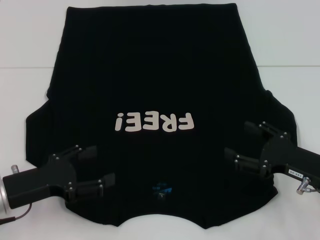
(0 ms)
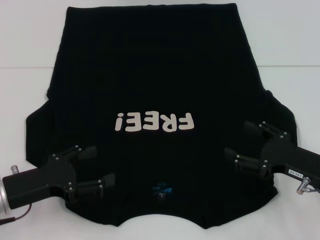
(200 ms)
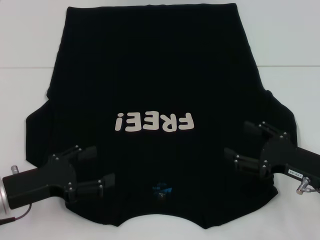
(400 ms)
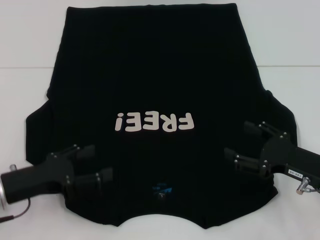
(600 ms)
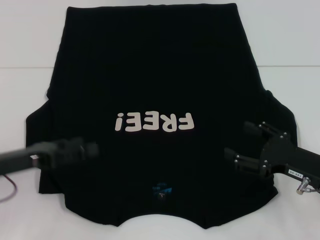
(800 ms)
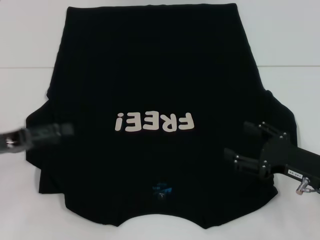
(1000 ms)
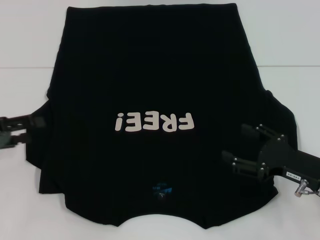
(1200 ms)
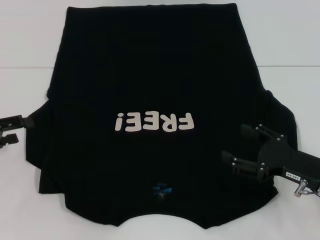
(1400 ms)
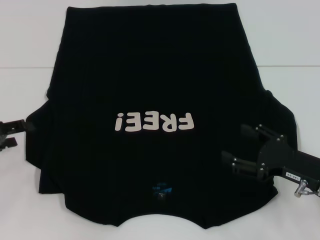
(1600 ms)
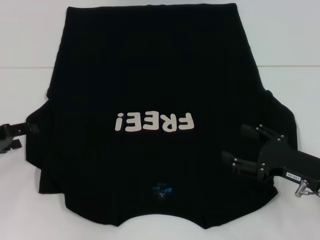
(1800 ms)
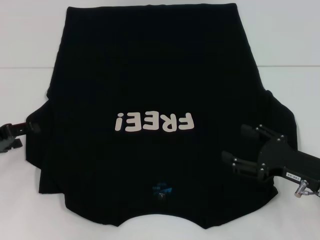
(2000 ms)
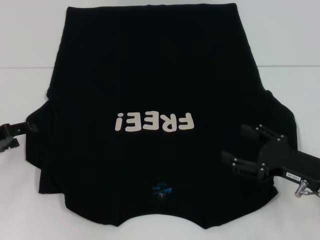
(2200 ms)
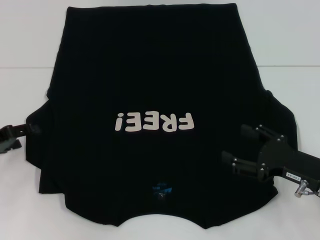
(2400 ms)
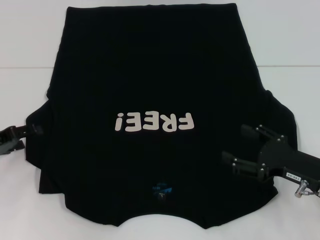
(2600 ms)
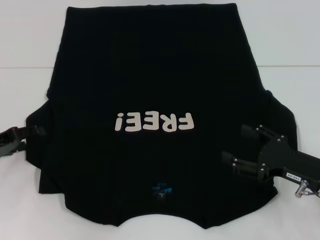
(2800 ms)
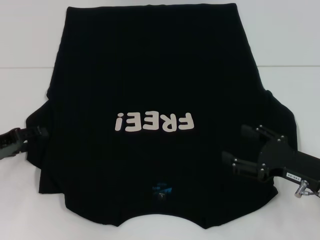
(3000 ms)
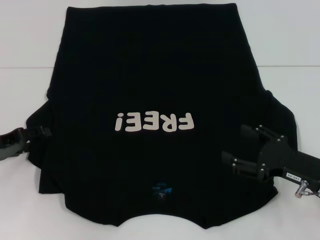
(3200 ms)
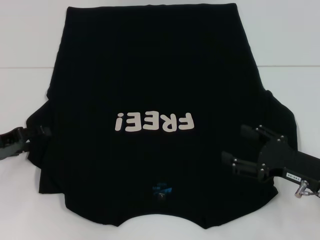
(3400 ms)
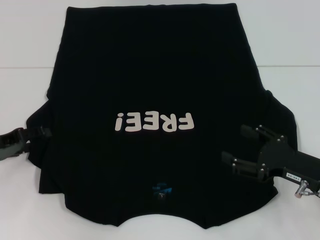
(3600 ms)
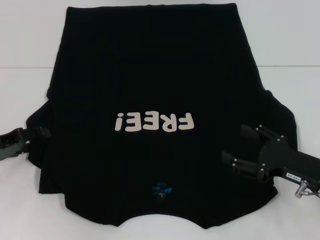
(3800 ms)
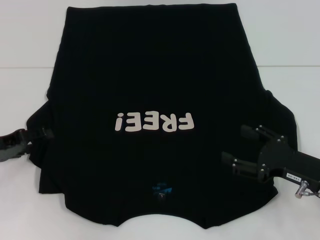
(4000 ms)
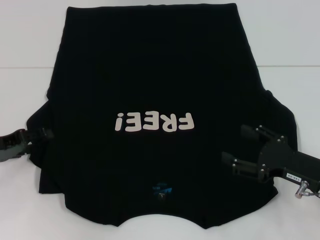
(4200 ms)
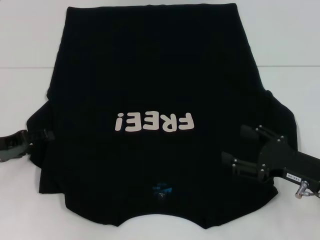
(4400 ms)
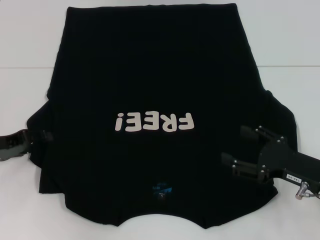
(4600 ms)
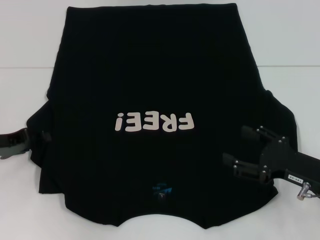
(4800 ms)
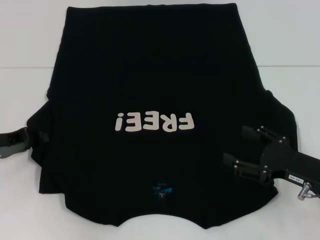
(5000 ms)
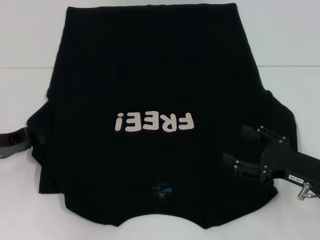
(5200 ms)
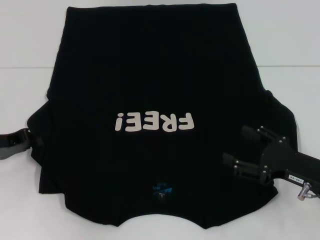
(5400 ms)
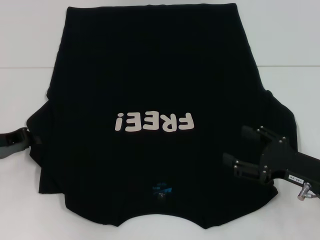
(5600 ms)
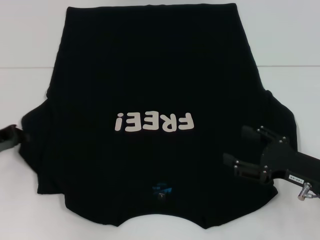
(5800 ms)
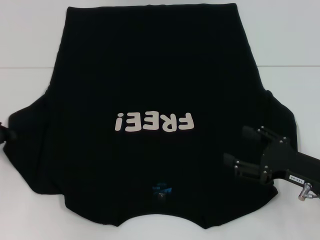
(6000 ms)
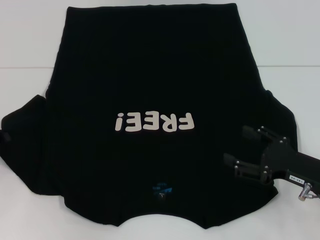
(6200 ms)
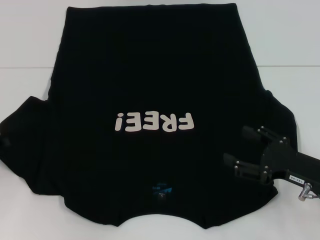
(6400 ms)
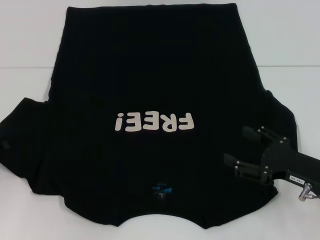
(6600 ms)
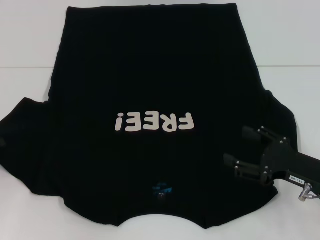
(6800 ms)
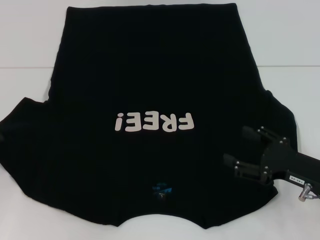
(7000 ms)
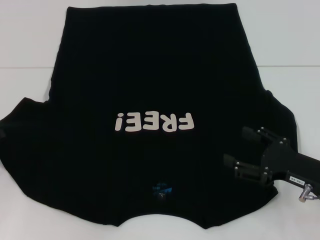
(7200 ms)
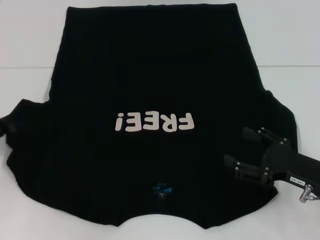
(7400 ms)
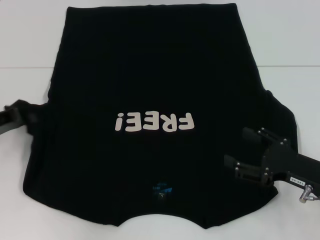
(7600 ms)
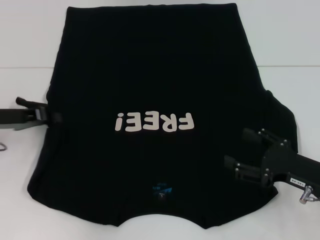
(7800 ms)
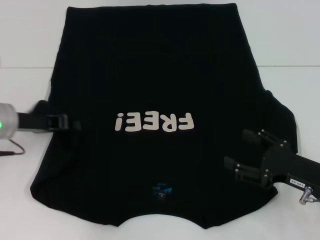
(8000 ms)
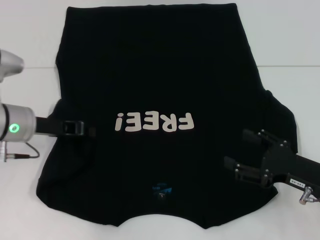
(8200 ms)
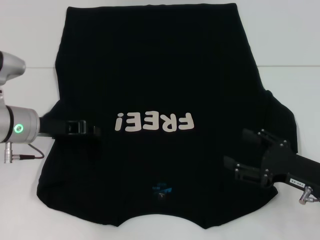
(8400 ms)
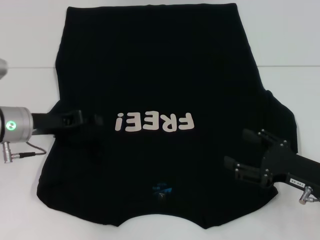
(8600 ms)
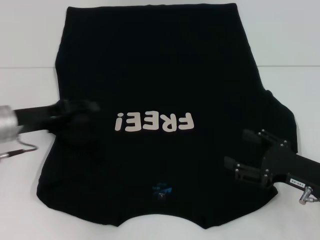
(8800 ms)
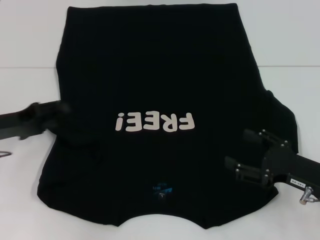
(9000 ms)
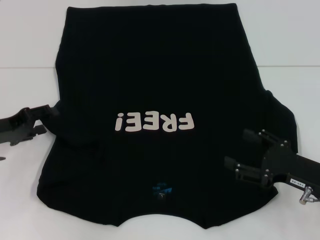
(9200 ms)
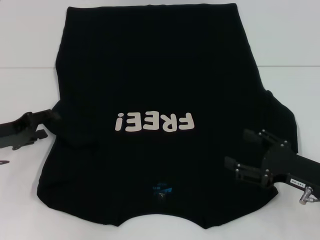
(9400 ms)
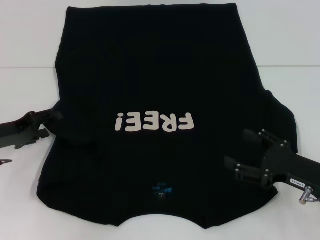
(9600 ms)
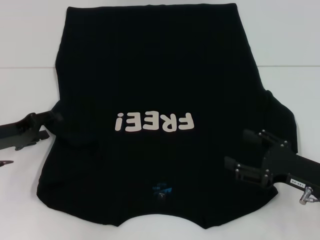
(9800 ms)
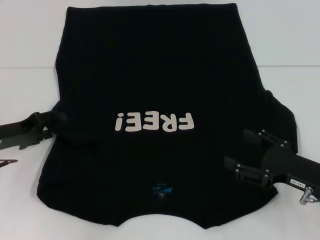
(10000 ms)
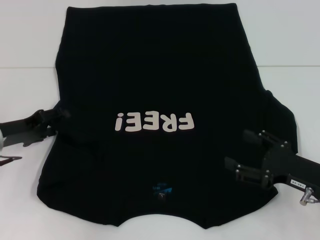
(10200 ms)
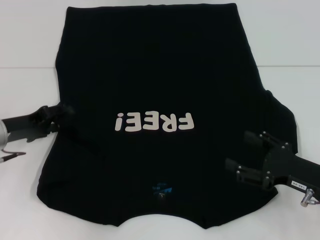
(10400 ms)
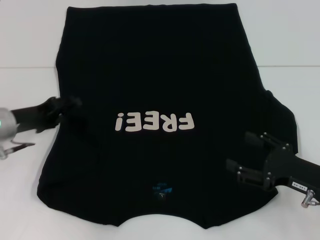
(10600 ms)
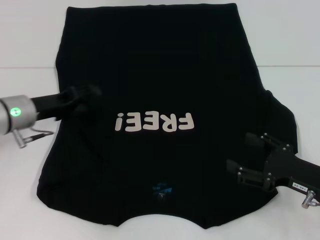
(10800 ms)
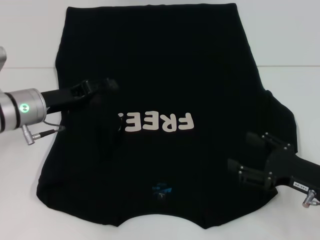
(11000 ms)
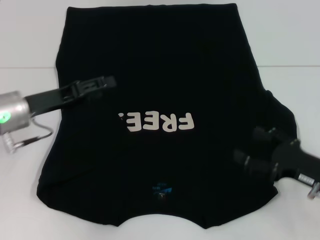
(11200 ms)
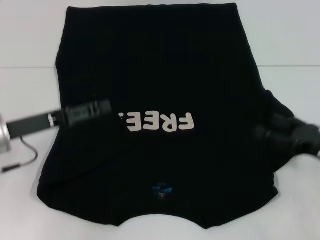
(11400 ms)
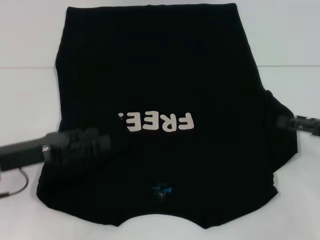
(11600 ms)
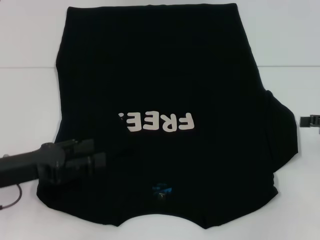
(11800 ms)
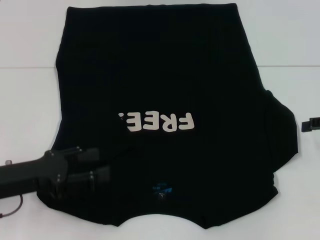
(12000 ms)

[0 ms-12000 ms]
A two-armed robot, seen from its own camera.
Step, 0 ms to 11200 ms: Fold the bottom left sleeve with your left hand.
0 ms to 1600 ms: The left gripper moves to the left and forward, roughly 10 cm.
1600 ms to 3000 ms: The grippers move only a little.
3000 ms to 4400 ms: Neither gripper changes place.
4400 ms to 6000 ms: The left gripper closes its fingers.
6000 ms to 7600 ms: The grippers stay close to where they were, moving slightly.
7600 ms to 9000 ms: The left gripper moves roughly 10 cm to the right and comes back, and opens up.
9000 ms to 10400 ms: The grippers move only a little.
10400 ms to 12000 ms: The right gripper moves upward, to the right and forward, some 15 cm. The left gripper heads backward, covering approximately 10 cm.

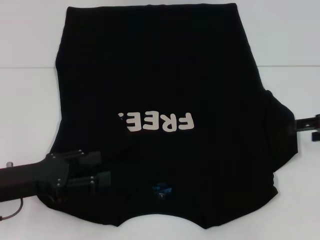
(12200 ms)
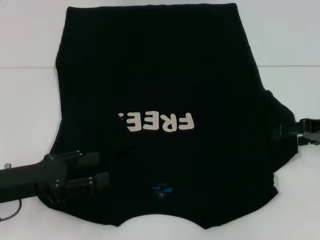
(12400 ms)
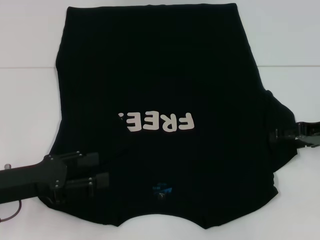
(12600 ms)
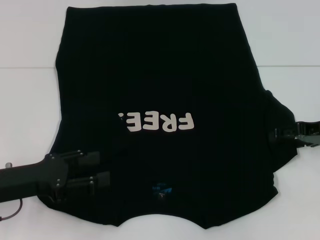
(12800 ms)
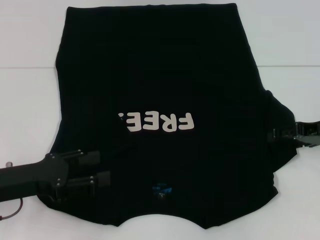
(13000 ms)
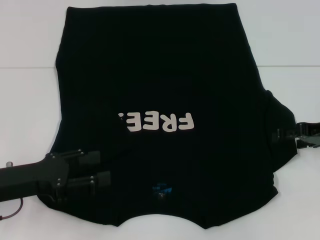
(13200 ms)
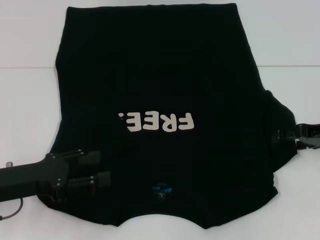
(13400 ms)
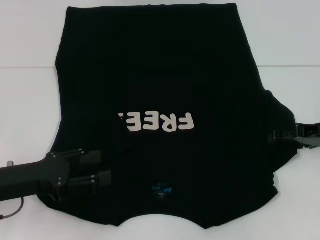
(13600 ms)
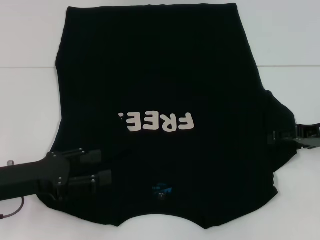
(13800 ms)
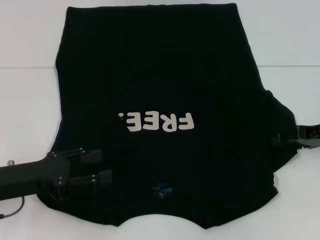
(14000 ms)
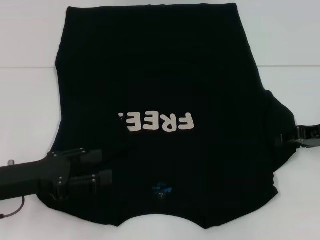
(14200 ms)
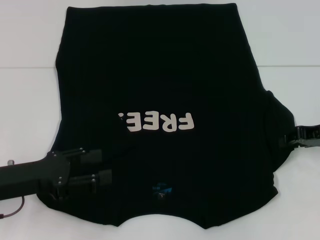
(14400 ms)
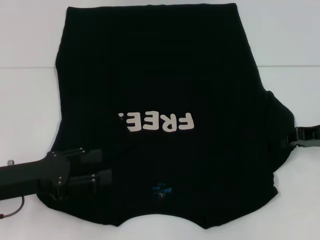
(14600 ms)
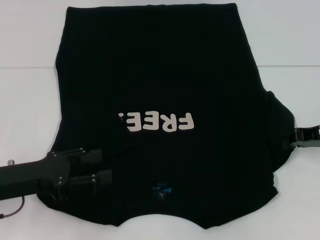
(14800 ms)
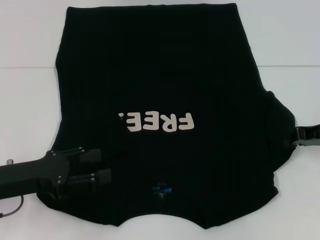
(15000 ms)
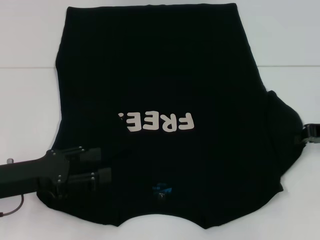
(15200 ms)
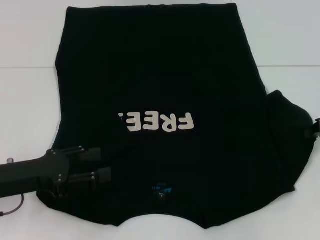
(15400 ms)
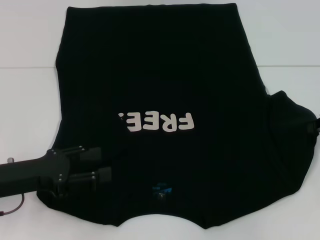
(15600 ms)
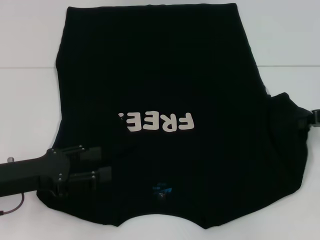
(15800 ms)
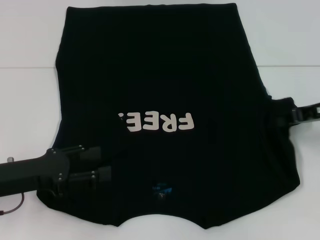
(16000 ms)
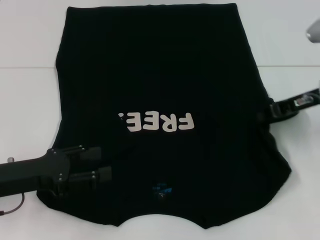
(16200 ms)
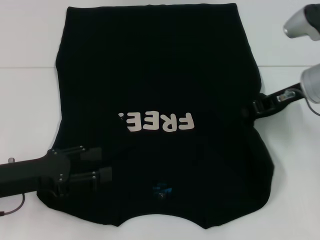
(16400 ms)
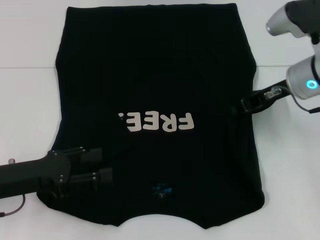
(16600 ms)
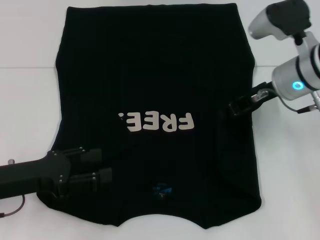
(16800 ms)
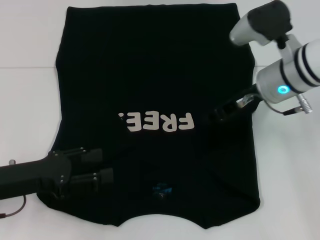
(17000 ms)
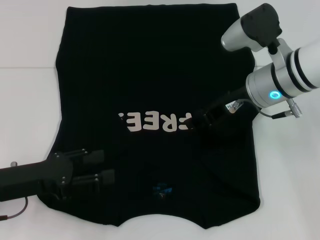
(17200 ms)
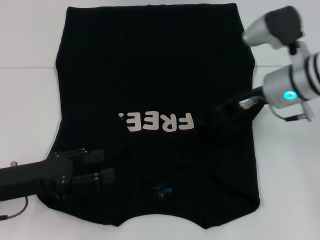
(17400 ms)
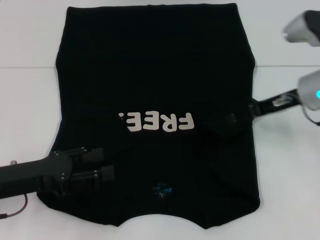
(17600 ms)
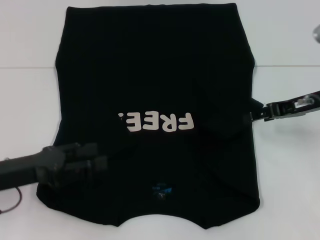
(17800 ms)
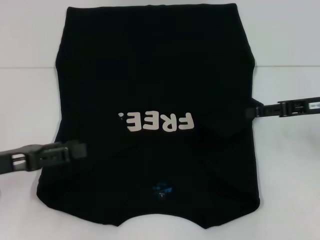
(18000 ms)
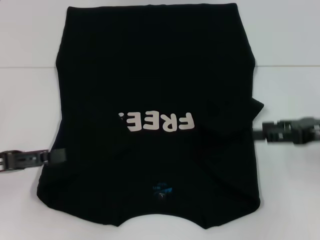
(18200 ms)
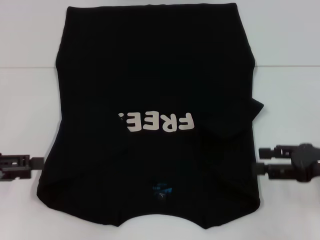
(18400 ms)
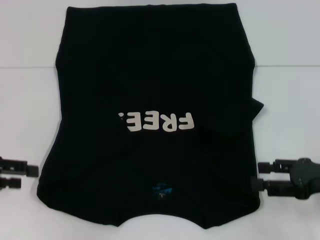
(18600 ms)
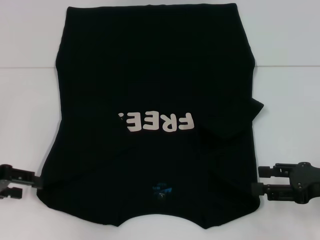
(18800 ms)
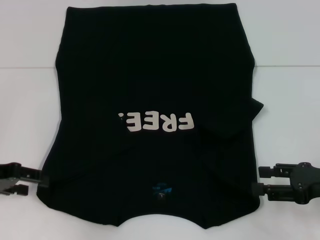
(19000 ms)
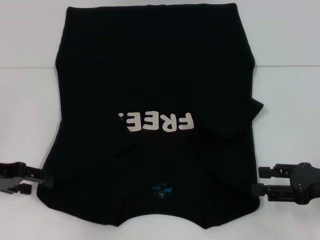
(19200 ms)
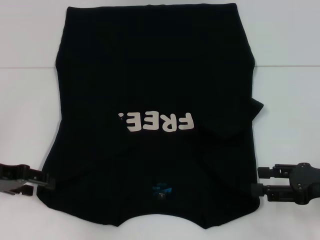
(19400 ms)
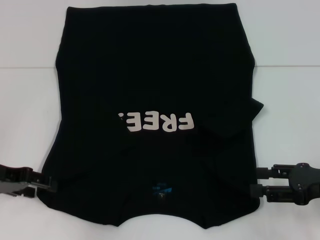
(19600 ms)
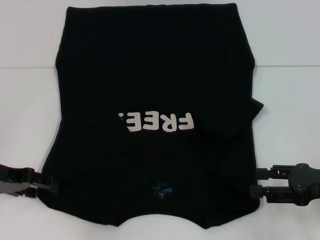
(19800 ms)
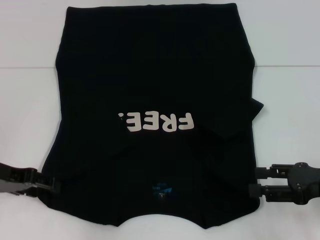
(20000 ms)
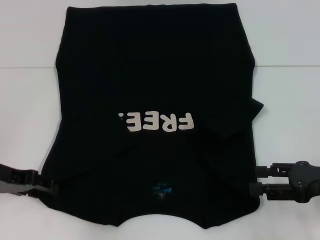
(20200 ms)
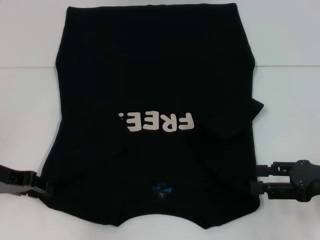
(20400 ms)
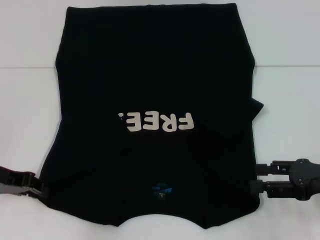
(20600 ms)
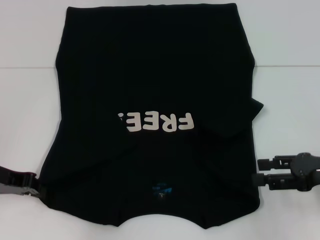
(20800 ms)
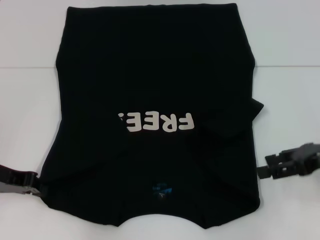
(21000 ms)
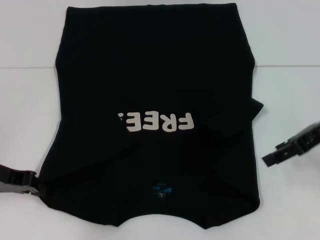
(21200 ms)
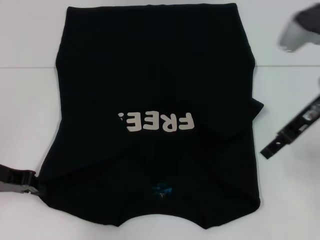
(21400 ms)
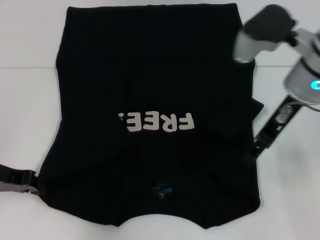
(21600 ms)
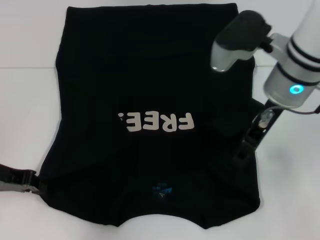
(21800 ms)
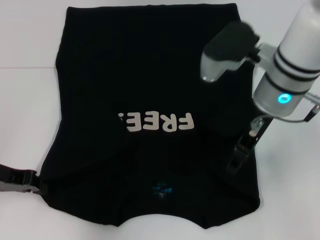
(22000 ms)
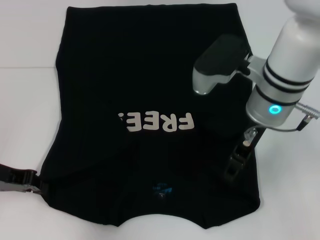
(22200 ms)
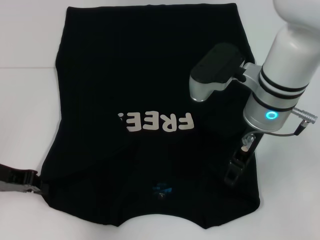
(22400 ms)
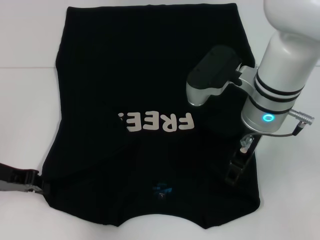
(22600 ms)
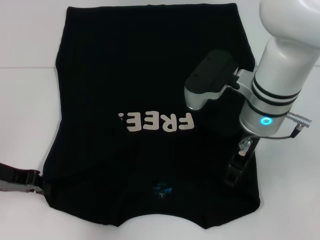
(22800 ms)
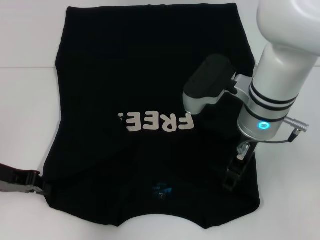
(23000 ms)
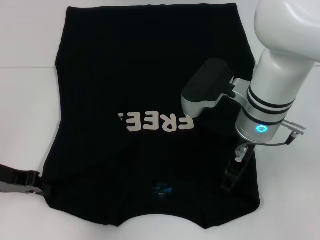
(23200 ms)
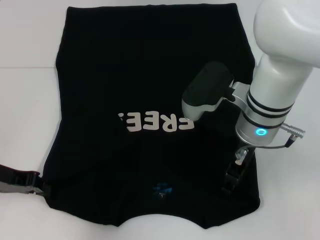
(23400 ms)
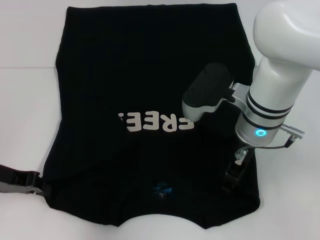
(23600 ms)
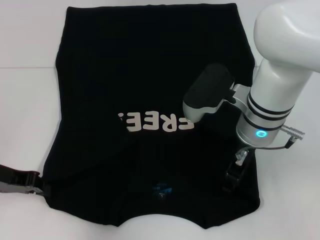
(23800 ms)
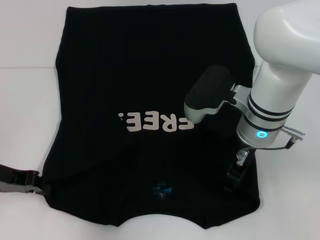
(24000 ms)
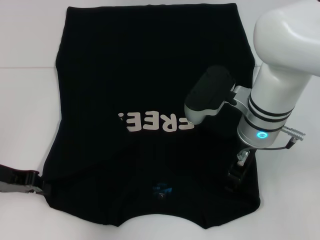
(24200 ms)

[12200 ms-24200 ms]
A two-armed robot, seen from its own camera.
Step, 12200 ms to 17800 ms: Fold the bottom right sleeve with your right hand.
Step, 18000 ms to 20800 ms: Grab the bottom left corner with your left hand.
12200 ms to 13800 ms: There are only small adjustments of the grippers.
13800 ms to 15200 ms: The right gripper closes its fingers.
15200 ms to 16600 ms: The right gripper goes roughly 10 cm to the left.
16600 ms to 18200 ms: The left gripper travels to the left by some 5 cm. Meanwhile the right gripper travels to the right and backward by roughly 15 cm, and opens its fingers.
18200 ms to 19800 ms: The right gripper moves backward, approximately 5 cm. Meanwhile the left gripper changes place by approximately 5 cm.
19800 ms to 21200 ms: The left gripper closes its fingers; the right gripper moves forward and upward, roughly 15 cm.
21200 ms to 22600 ms: The right gripper heads to the left, covering approximately 15 cm.
22600 ms to 24200 ms: The grippers stay close to where they were, moving slightly.
